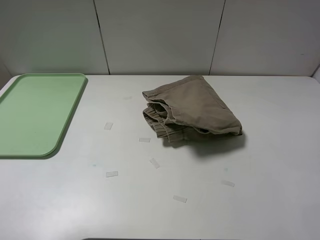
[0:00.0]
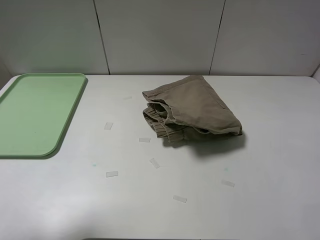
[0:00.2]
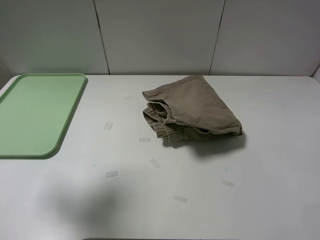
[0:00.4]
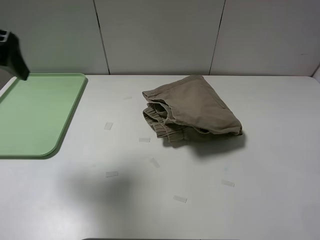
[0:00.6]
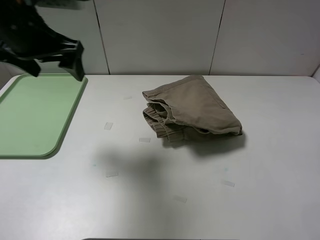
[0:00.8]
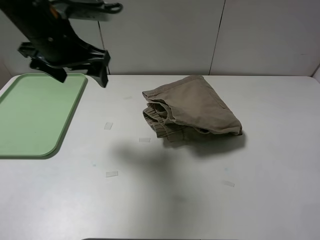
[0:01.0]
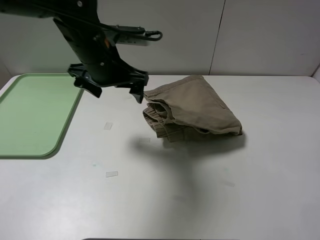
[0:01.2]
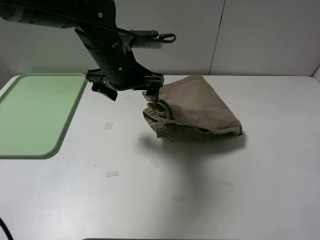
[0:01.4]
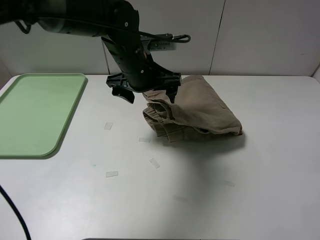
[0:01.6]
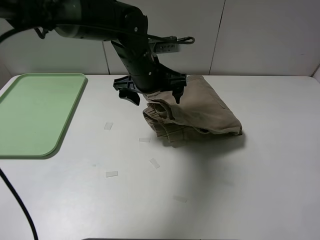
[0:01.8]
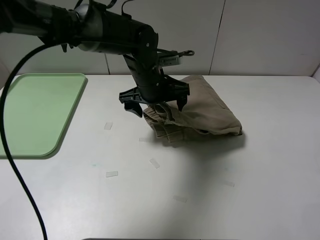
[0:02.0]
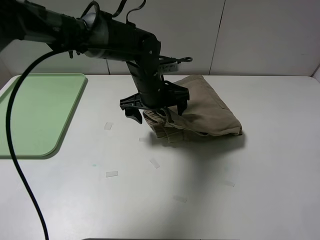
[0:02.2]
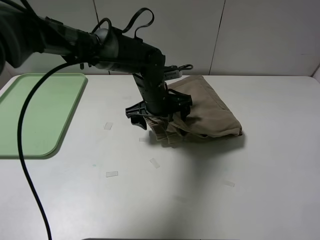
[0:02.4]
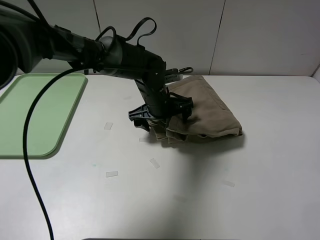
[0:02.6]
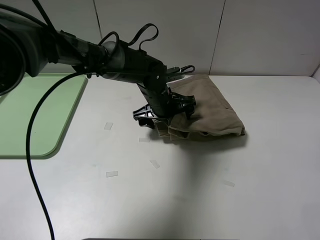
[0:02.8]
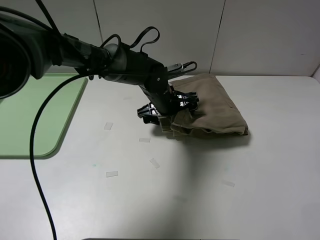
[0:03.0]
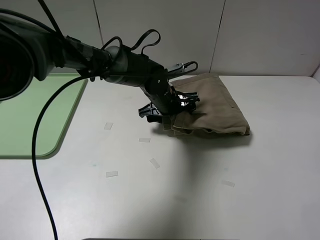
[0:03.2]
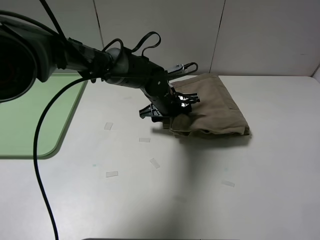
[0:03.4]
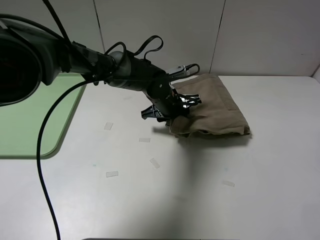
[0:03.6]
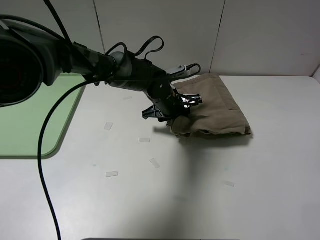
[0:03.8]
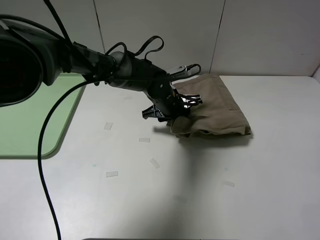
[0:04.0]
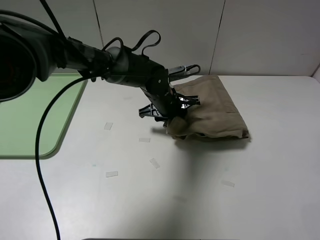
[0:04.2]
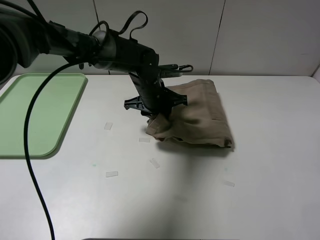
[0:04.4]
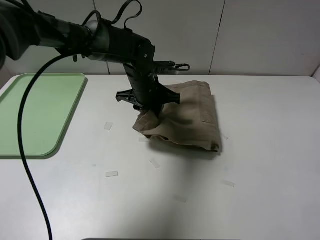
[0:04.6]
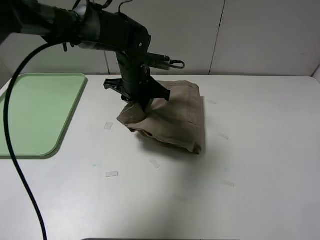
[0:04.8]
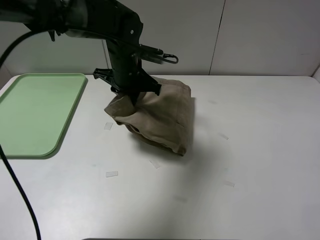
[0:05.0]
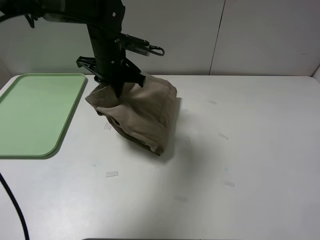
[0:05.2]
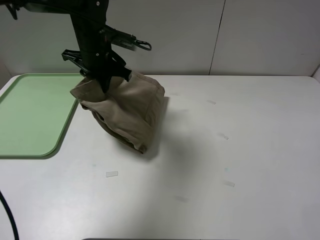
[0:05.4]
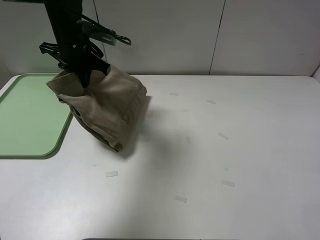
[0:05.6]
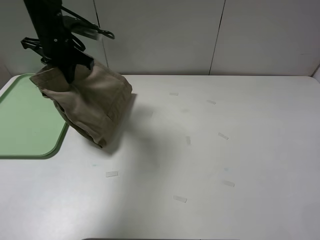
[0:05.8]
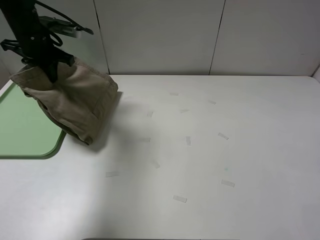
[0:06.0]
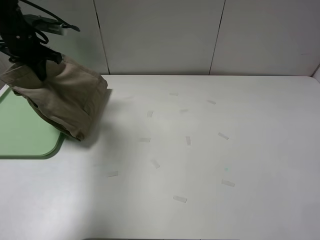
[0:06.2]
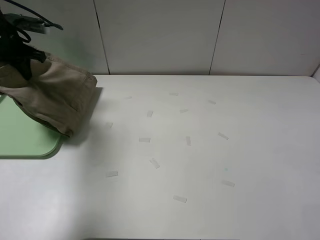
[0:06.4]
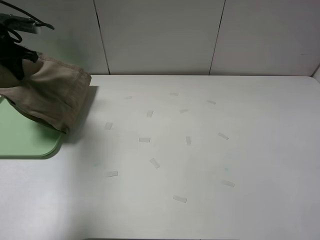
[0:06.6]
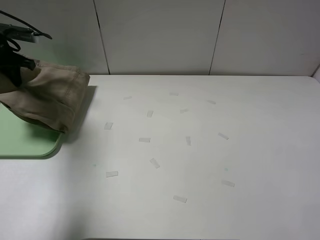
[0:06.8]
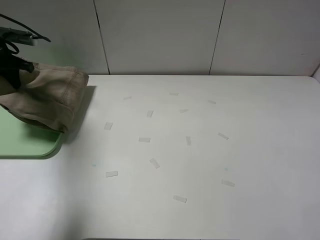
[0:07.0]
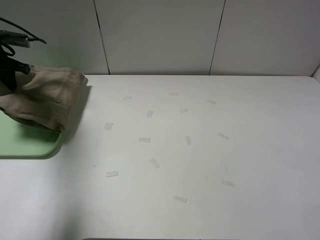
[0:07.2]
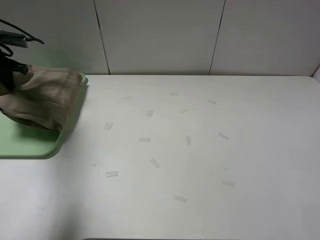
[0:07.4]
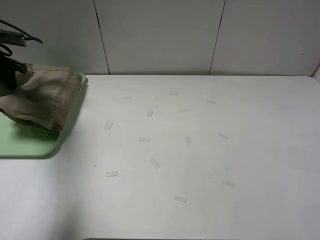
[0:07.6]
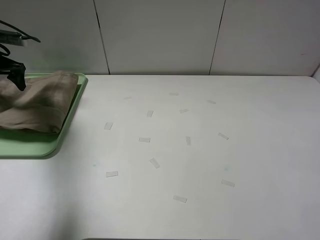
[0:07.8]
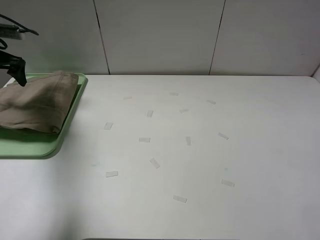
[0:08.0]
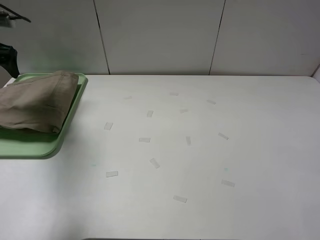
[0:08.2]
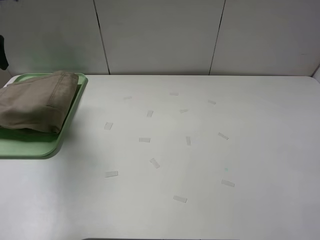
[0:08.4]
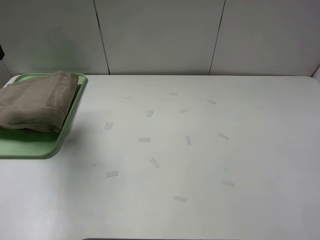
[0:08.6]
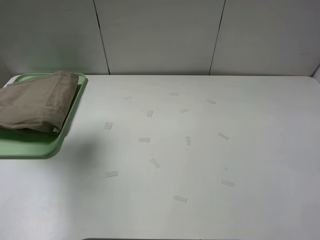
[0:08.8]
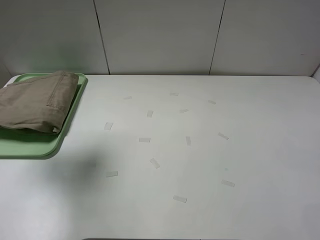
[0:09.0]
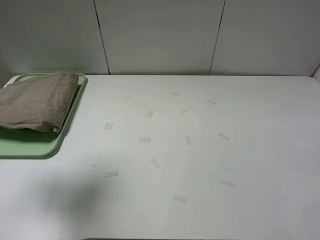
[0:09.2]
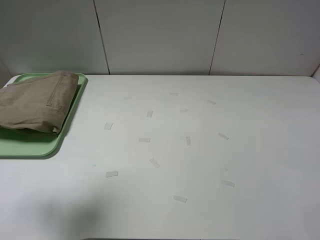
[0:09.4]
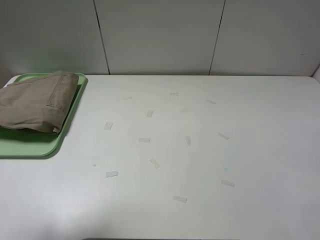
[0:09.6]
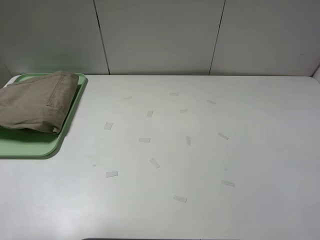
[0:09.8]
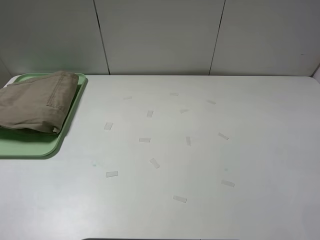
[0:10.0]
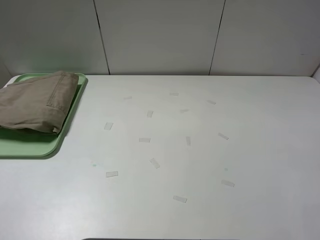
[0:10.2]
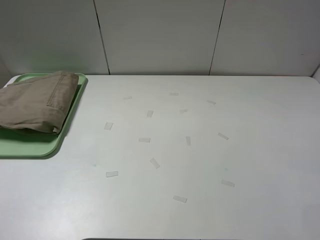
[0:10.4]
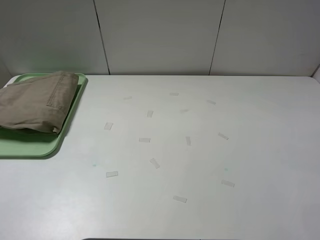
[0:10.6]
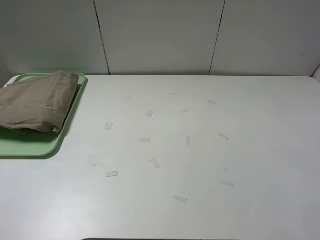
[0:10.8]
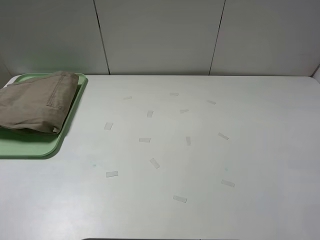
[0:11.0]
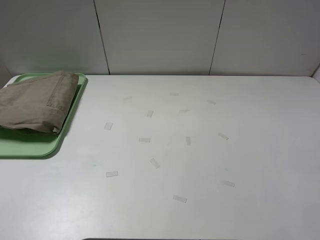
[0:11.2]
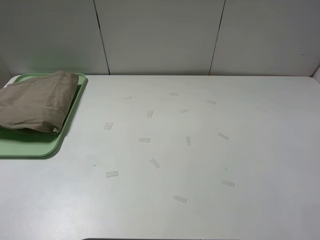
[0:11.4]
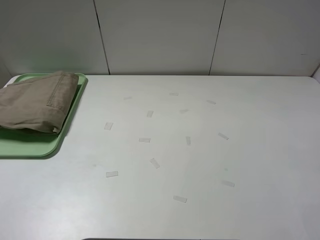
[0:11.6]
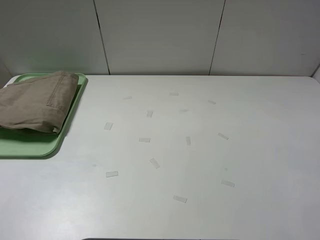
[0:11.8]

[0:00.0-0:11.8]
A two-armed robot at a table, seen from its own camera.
Task of the whole recording: fold the khaki jeans in half with two grippers, then fold them in half again, and use the left claw to place the folded fold khaki jeans on the tray.
Step, 0:00.0 to 0:03.8: Grasp the khaki trousers with the left gripper.
Step, 0:04.0 to 0:08.0: Place the folded khaki trousers on the green tray with the left gripper.
0:00.0 to 0:01.4: The left gripper shifts roughly 40 cm to the right, forward and downward.
0:01.4 to 0:03.0: The left gripper heads downward and to the right, covering some 15 cm.
0:03.0 to 0:04.4: The left gripper closes up.
0:04.4 to 0:06.0: The left gripper goes approximately 30 cm to the left and upward.
0:06.0 to 0:07.4: The left gripper shifts some 15 cm to the left.
0:07.4 to 0:08.8: The left gripper moves upward and backward, approximately 20 cm, and opens.
0:08.8 to 0:10.4: The left gripper shifts approximately 30 cm backward.
